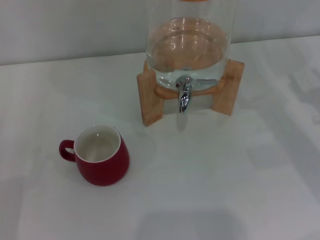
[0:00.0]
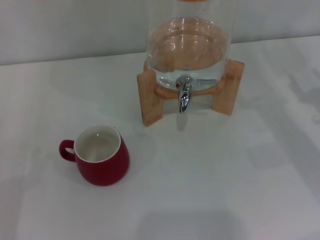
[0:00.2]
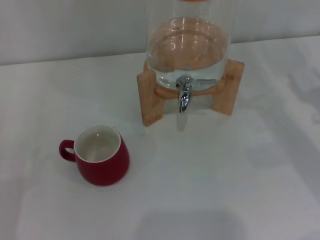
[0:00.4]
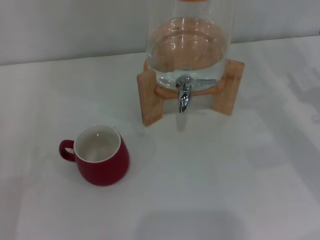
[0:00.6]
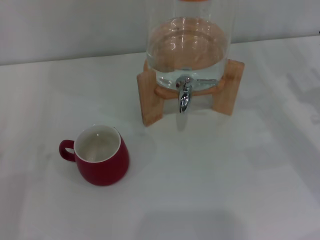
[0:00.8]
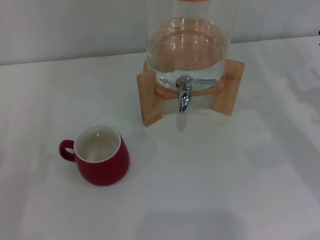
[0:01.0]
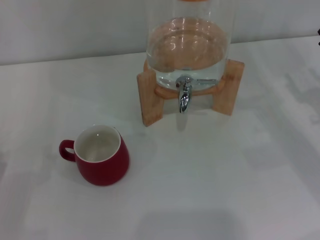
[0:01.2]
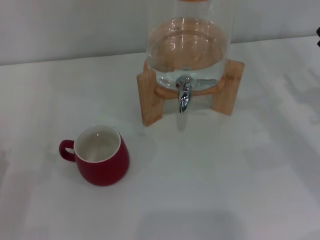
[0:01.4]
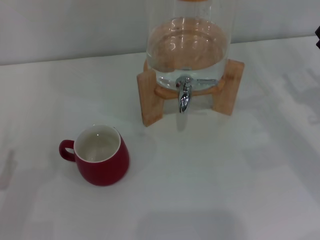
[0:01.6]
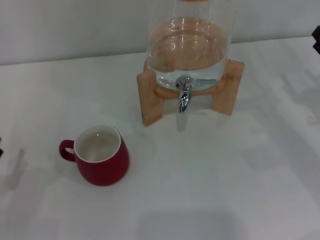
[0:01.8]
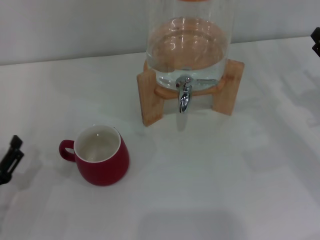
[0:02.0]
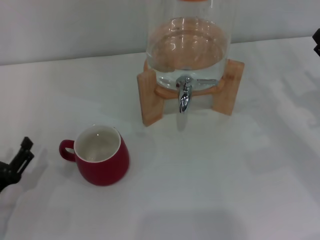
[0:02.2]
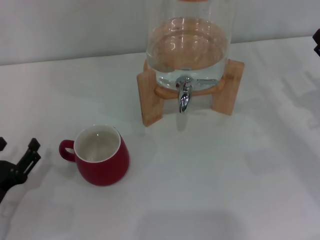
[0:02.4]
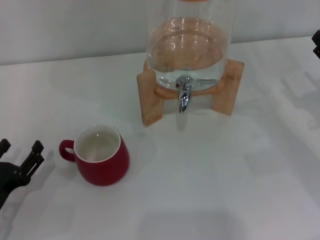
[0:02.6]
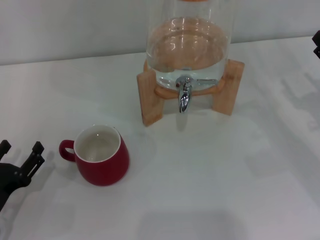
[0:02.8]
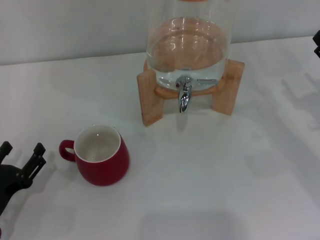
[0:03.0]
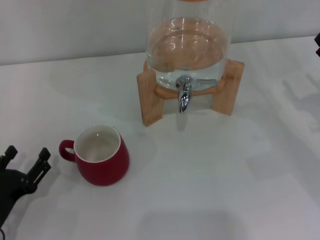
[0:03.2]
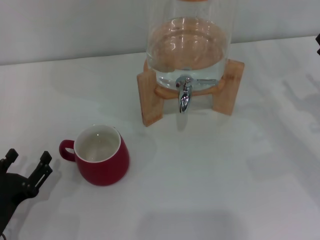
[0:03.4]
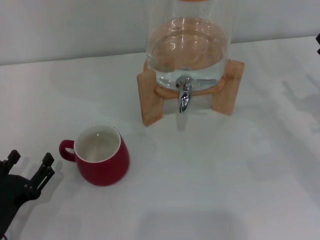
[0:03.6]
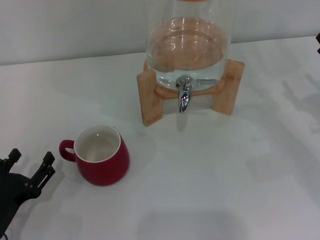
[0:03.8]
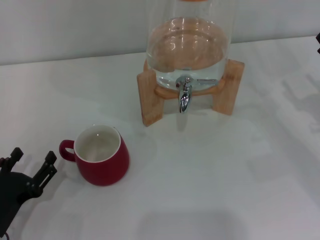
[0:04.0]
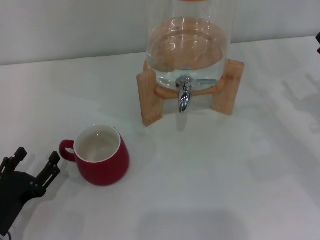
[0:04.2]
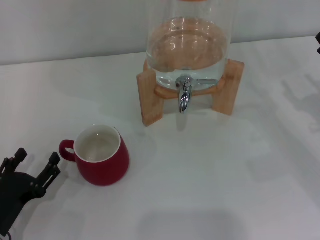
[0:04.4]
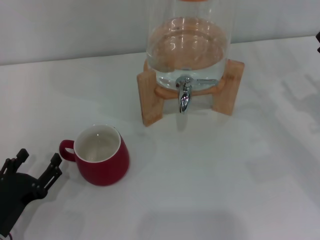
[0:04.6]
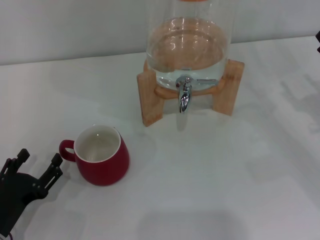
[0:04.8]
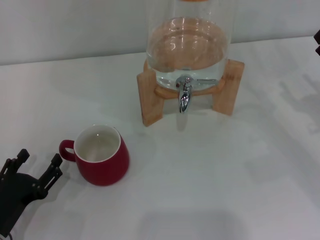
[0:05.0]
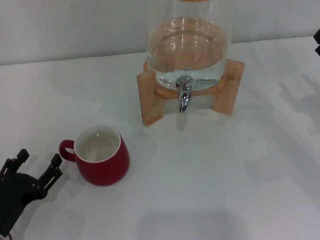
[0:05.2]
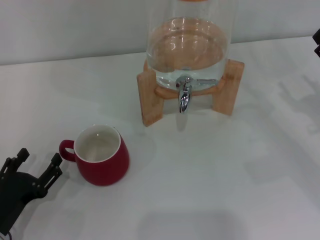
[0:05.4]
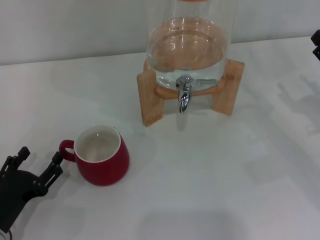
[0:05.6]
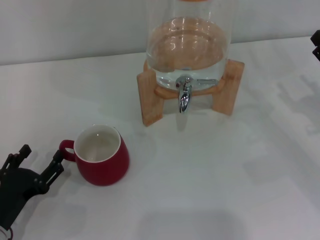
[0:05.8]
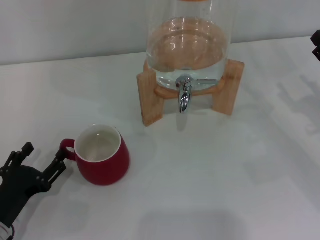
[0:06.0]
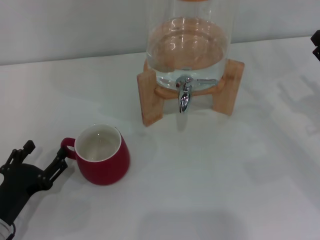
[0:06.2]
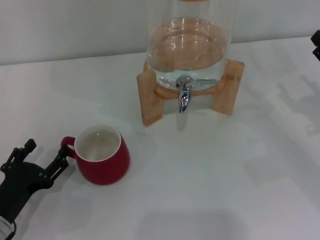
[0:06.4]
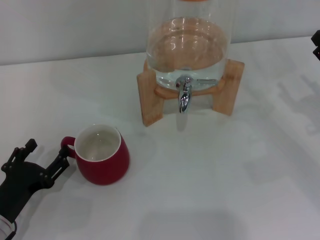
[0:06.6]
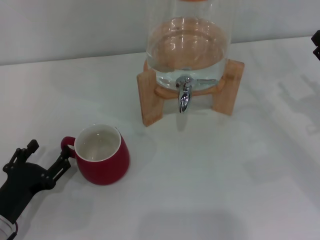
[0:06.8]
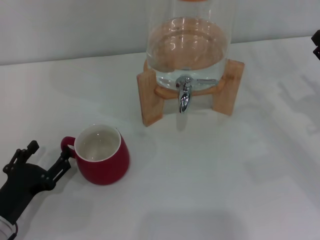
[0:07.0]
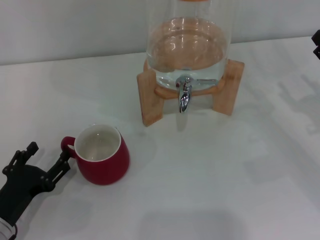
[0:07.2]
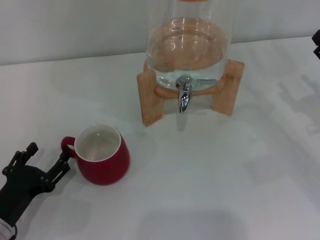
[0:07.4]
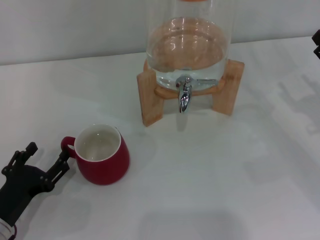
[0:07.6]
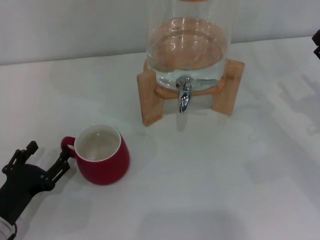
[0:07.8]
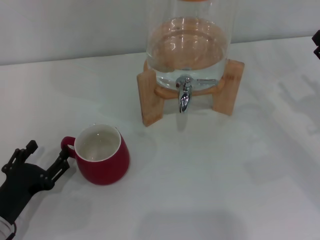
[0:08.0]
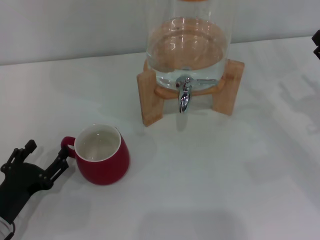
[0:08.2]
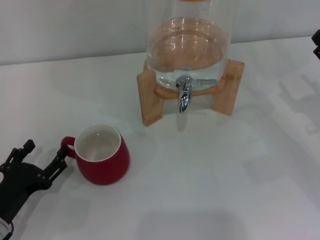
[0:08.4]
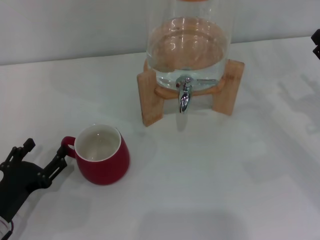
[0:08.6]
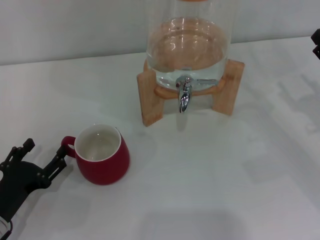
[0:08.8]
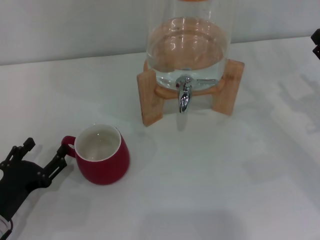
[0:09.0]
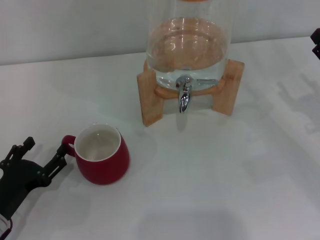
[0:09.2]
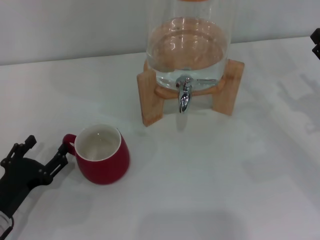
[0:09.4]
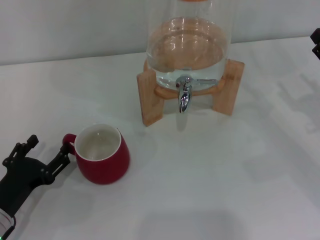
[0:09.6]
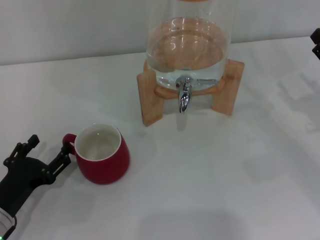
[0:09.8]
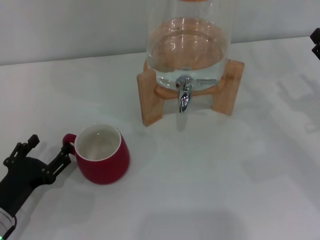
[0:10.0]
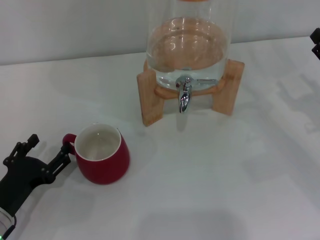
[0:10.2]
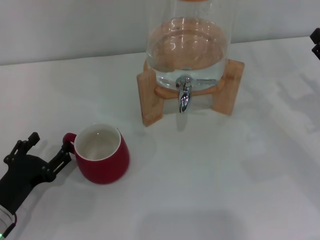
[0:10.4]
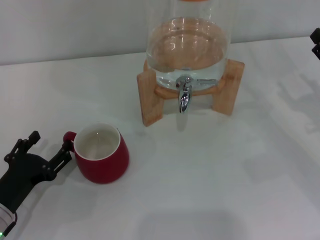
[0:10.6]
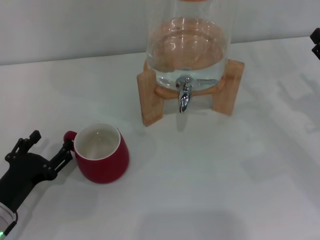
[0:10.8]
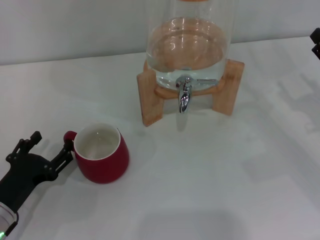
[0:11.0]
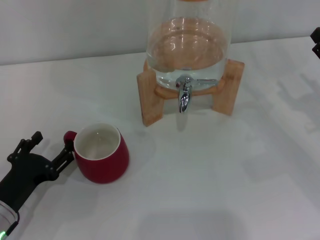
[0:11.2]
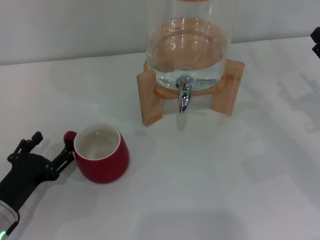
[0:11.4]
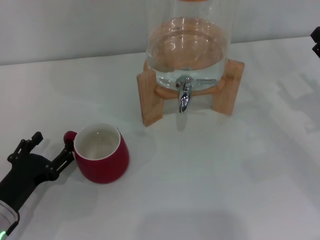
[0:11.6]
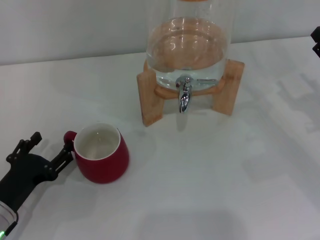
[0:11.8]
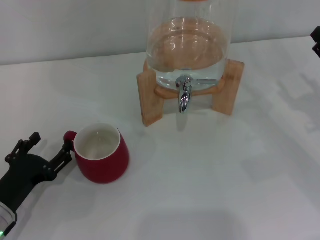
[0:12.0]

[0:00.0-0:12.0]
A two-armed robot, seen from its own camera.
Task of the whole recording: the left gripper pick up the red cup and place it horizontally under the faucet, the right gripper turn on the faucet to fill the cup, and then turn off the faucet.
0:01.6 to 0:04.4: The grippers make only small movements.
0:04.4 to 0:06.0: Both grippers stay put.
0:06.0 to 0:09.0: Both grippers stay about where they are.
0:09.0 to 0:10.4: Both grippers stay about where they are.
0:10.4 to 0:12.0: Neither gripper changes place.

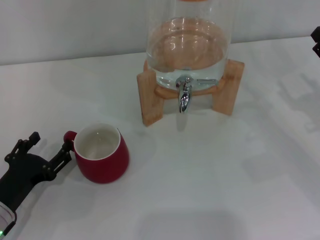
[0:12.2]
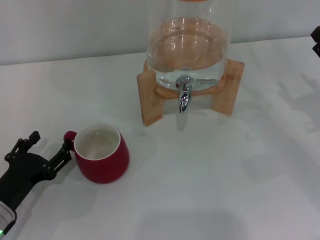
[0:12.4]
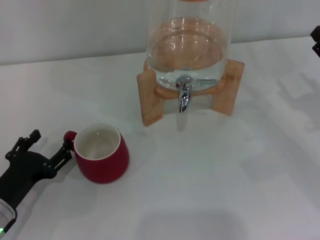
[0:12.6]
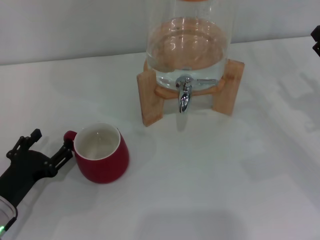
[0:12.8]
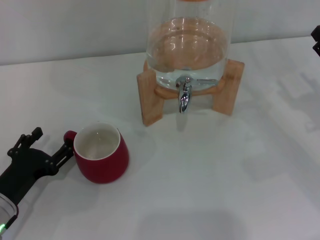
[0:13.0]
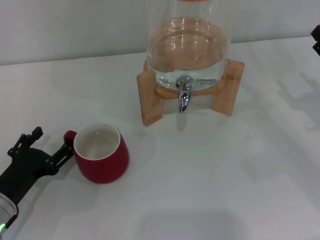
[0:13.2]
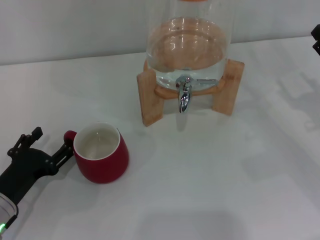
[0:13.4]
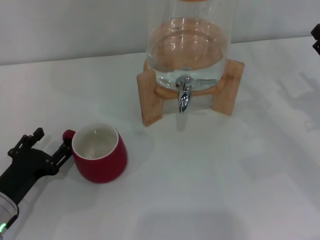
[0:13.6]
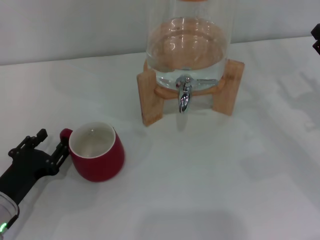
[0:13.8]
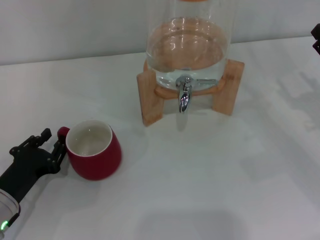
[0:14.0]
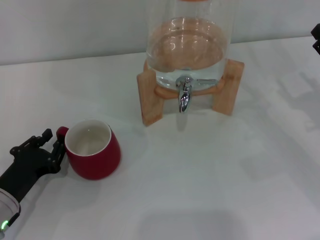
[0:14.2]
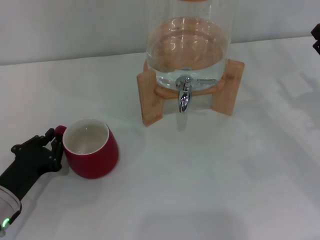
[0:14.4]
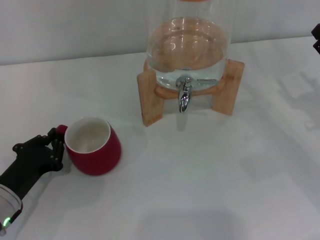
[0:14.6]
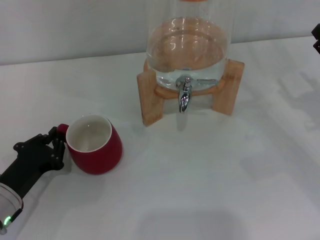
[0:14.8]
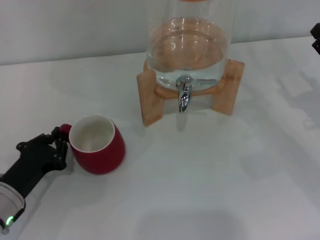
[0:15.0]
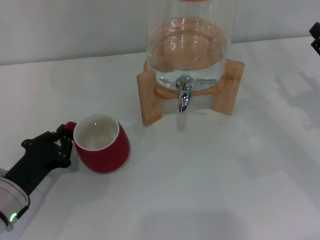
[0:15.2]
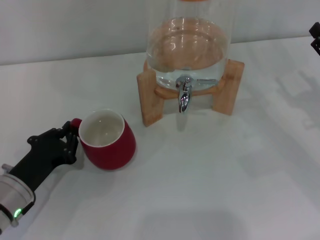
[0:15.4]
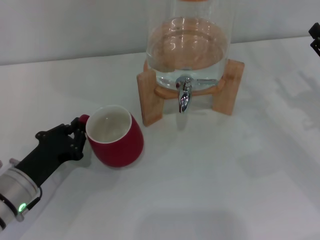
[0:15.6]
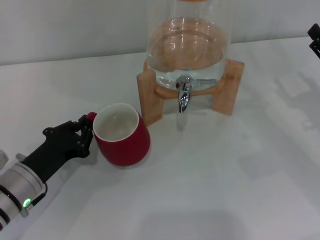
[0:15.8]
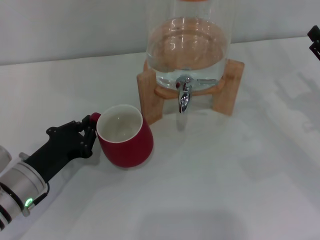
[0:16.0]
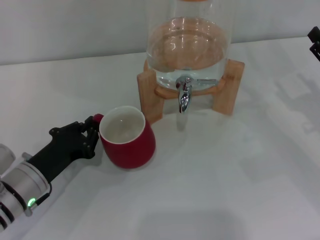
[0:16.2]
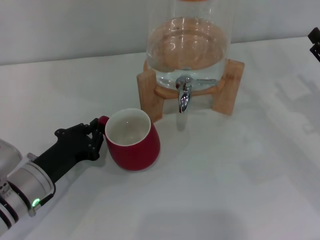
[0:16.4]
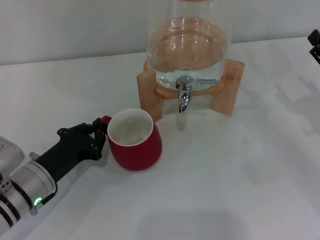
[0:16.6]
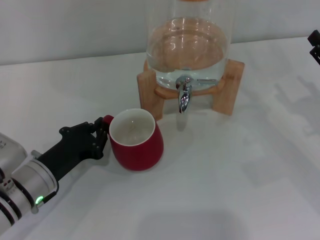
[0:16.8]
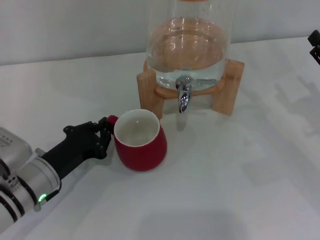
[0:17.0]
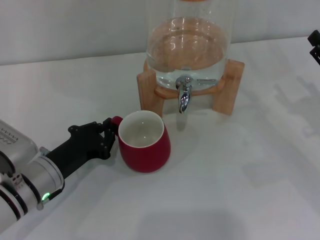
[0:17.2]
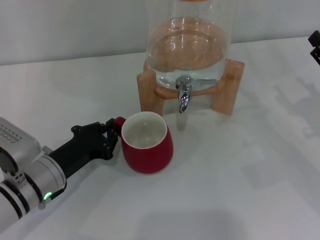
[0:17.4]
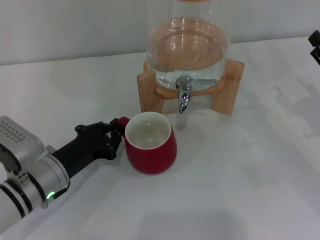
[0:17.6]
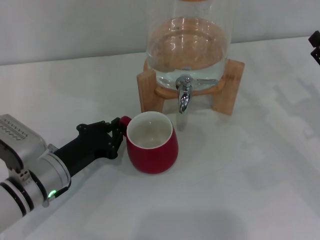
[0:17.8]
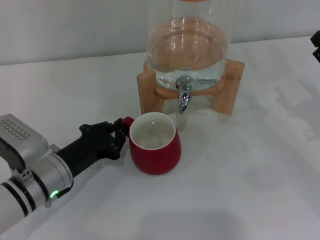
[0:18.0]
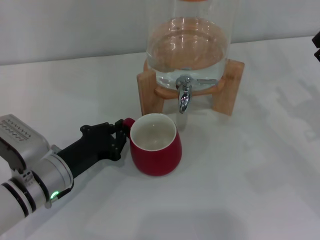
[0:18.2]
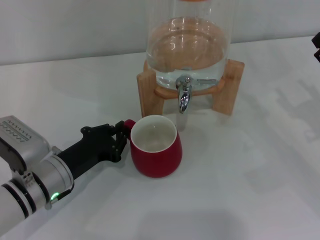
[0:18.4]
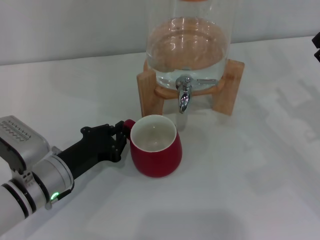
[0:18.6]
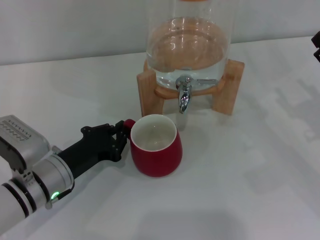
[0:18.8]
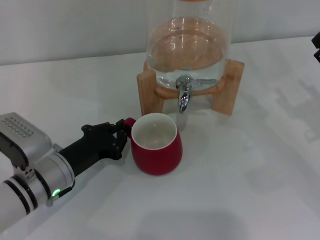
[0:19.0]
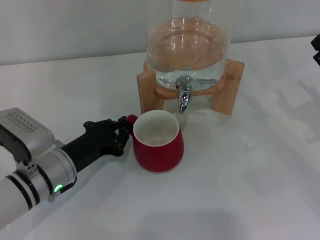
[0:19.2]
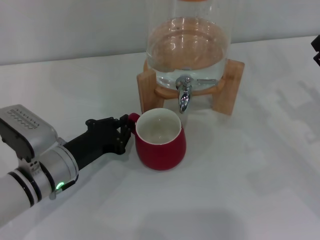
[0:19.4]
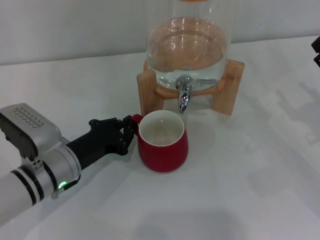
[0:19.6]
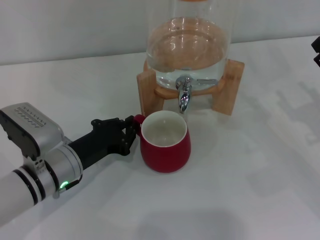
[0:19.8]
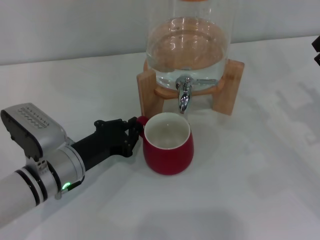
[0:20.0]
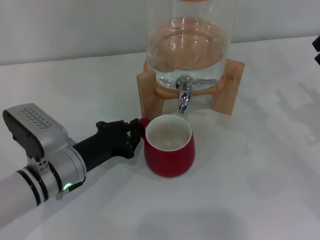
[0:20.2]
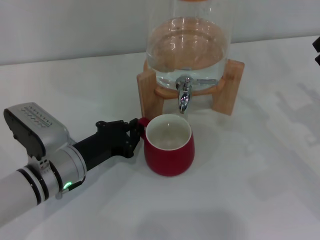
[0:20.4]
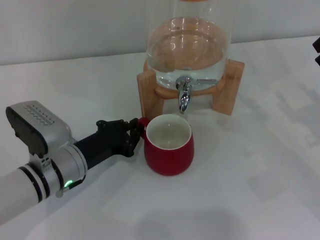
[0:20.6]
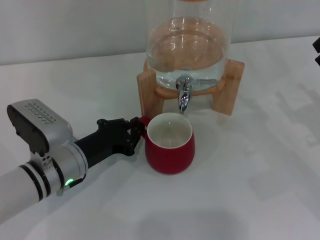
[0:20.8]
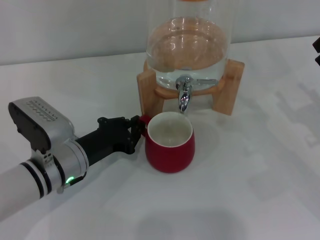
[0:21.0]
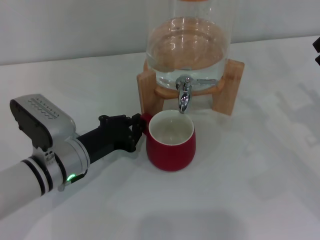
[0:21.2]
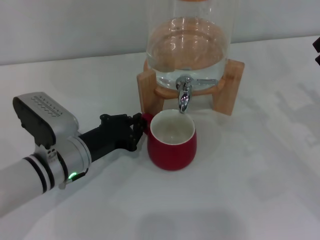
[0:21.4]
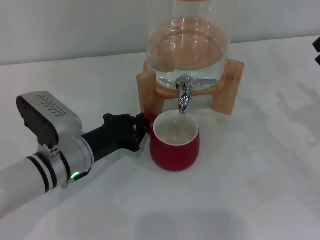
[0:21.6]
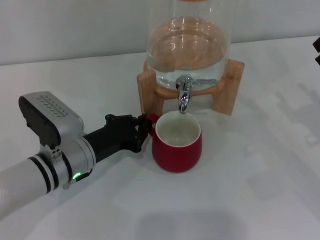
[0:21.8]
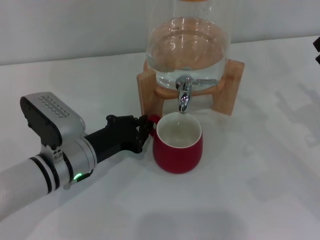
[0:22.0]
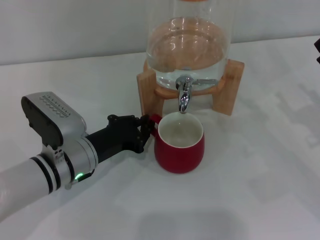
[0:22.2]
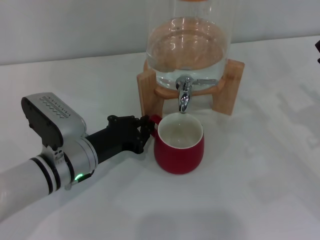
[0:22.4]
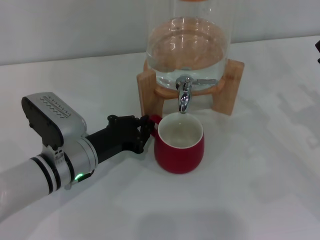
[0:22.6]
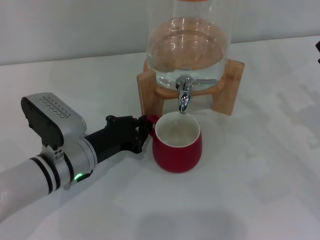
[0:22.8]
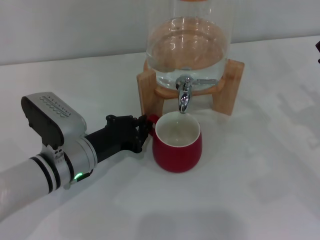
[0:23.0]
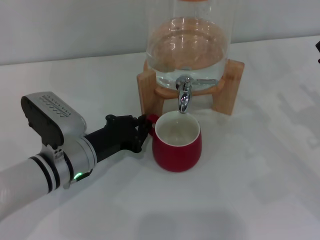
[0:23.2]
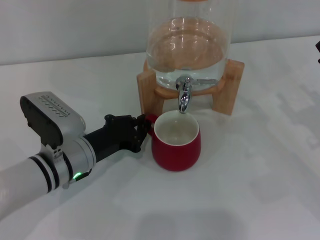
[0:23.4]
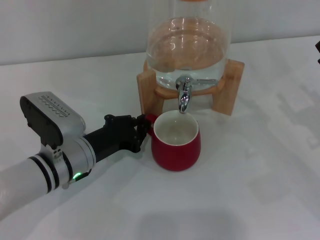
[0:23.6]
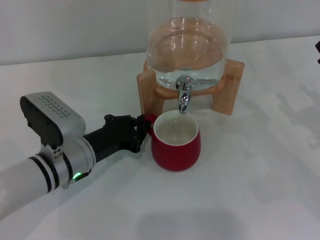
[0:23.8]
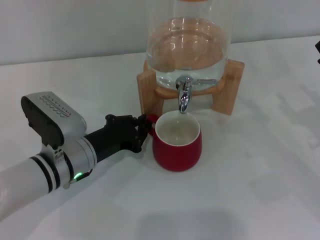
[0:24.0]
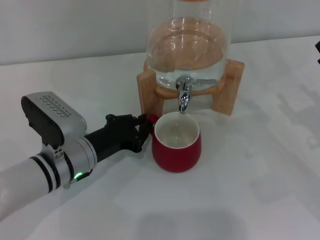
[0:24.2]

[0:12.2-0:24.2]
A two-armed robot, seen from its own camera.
Task of the whole recording: the left gripper pick up the red cup and place it horizontally under the faucet, the right gripper turn on the faucet to fill the cup, and then turn off the faucet.
0:12.2 to 0:13.8: The two grippers keep their place.
0:13.8 to 0:15.2: The left gripper closes.
0:15.2 to 0:16.6: The grippers stay close to where they were, moving slightly.
0:16.6 to 0:19.8: There are only small adjustments of the grippers.
0:19.8 to 0:21.2: The grippers make only small movements.
0:21.2 to 0:24.2: Both grippers stay about where they are.
